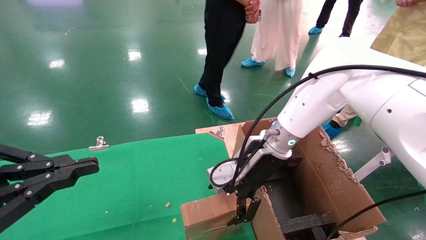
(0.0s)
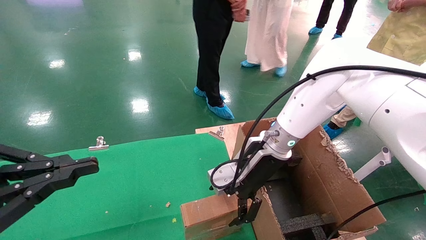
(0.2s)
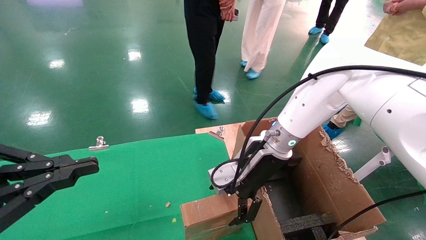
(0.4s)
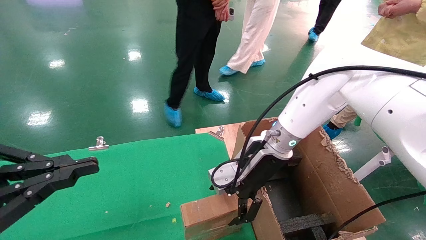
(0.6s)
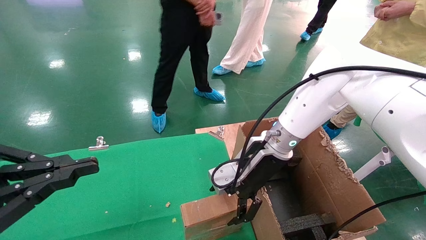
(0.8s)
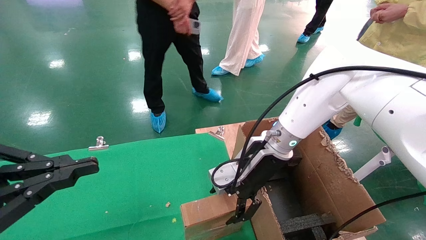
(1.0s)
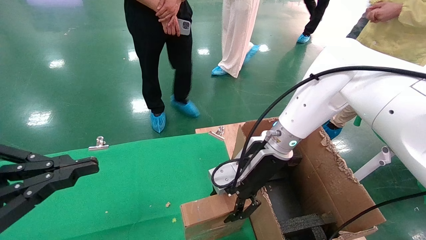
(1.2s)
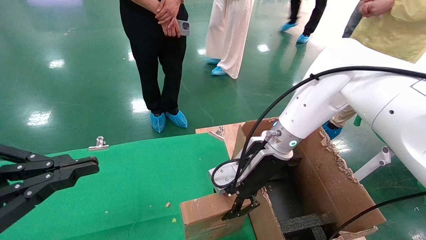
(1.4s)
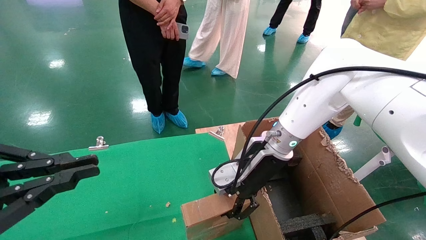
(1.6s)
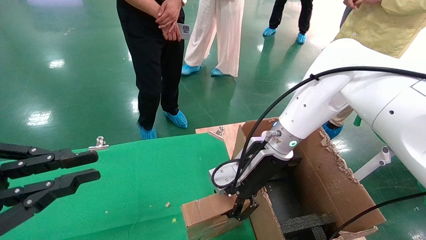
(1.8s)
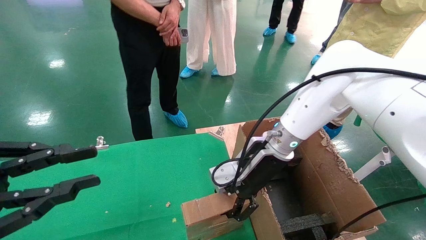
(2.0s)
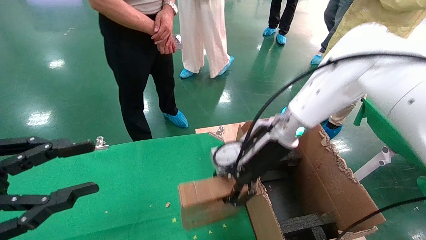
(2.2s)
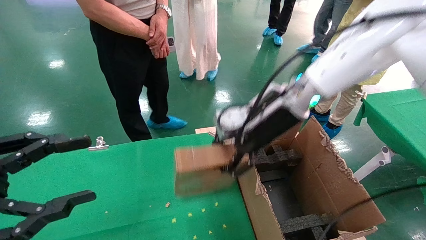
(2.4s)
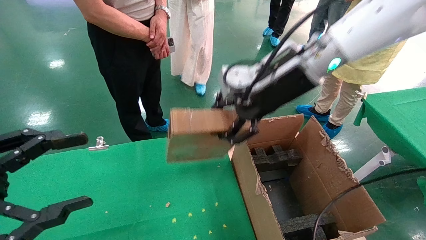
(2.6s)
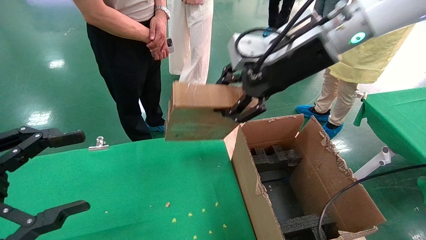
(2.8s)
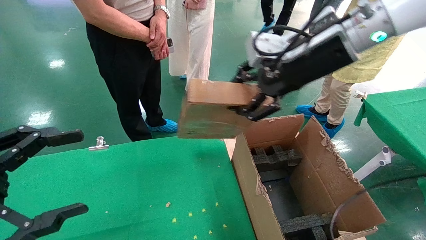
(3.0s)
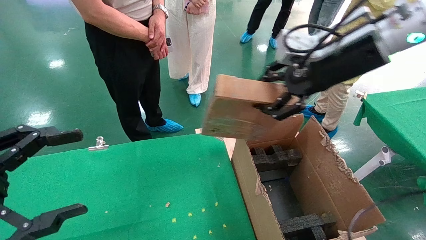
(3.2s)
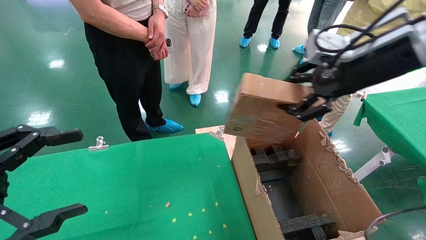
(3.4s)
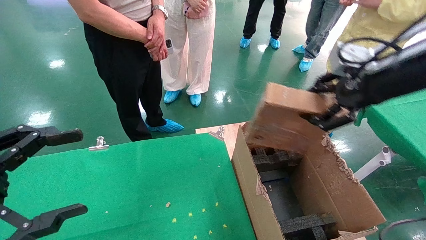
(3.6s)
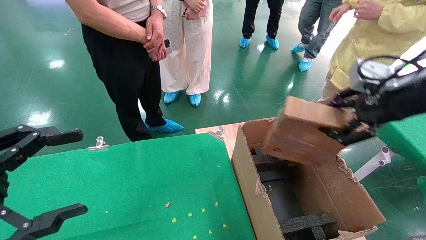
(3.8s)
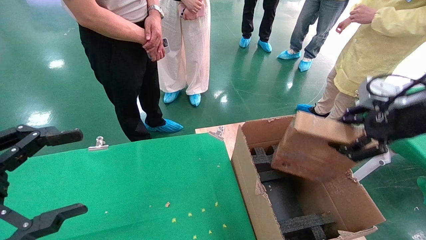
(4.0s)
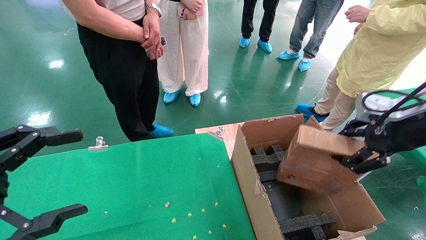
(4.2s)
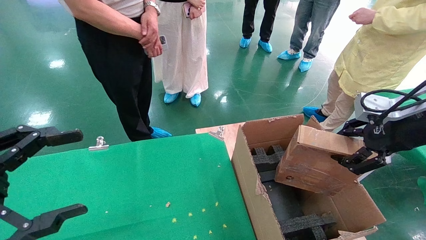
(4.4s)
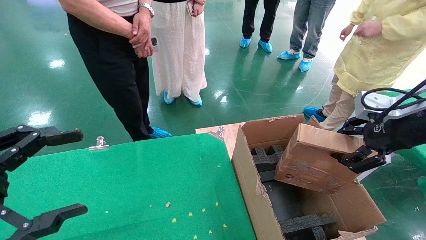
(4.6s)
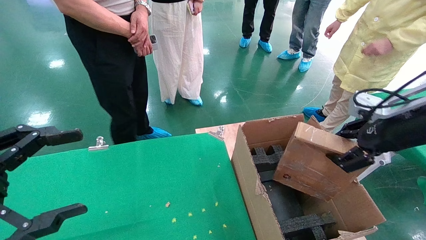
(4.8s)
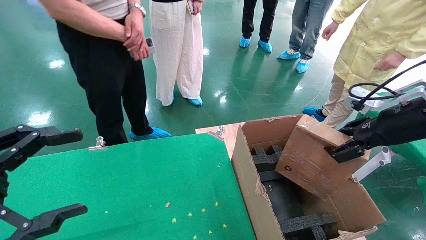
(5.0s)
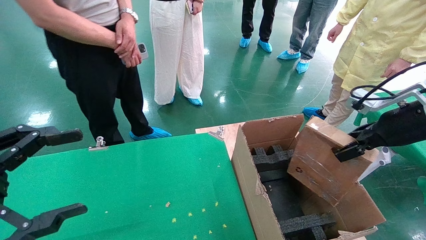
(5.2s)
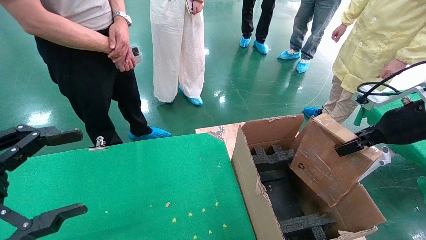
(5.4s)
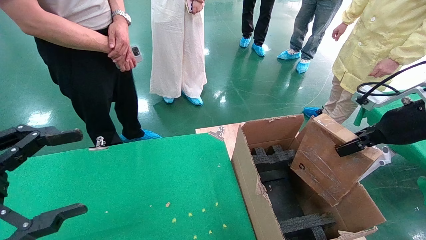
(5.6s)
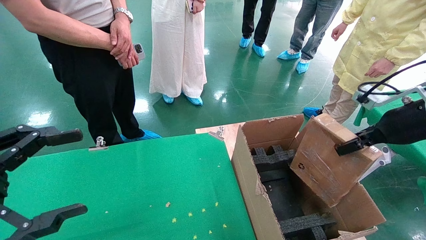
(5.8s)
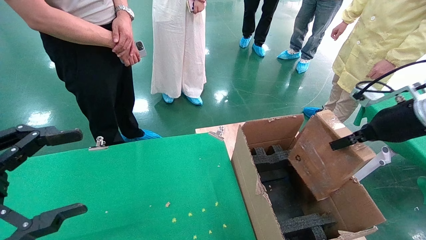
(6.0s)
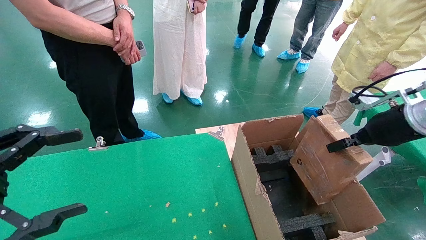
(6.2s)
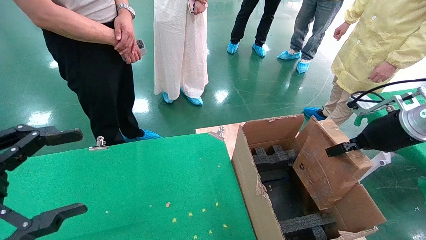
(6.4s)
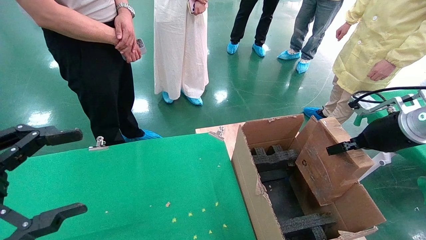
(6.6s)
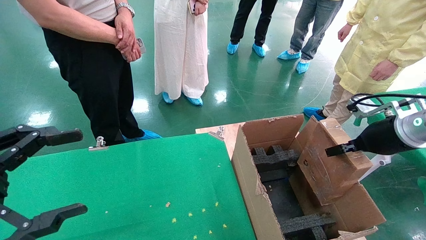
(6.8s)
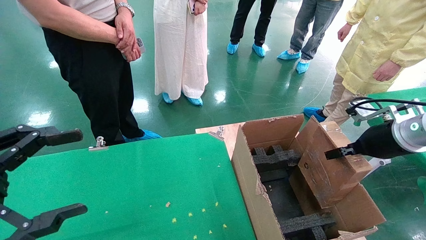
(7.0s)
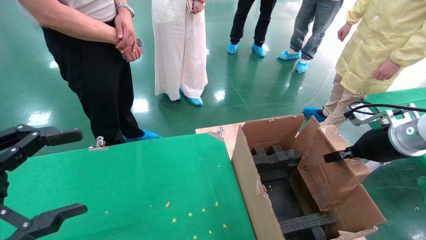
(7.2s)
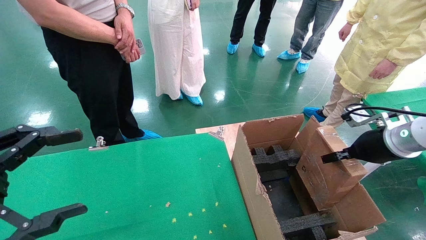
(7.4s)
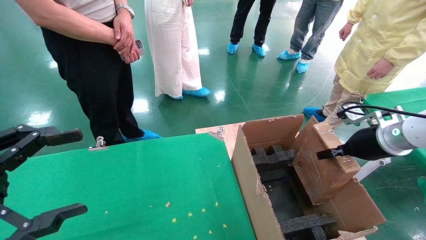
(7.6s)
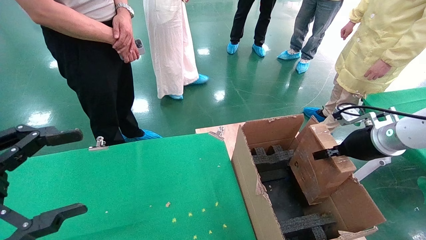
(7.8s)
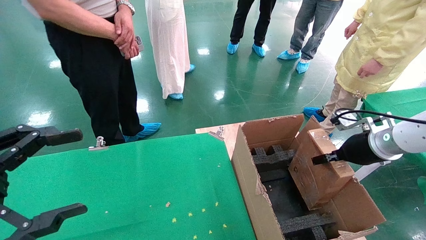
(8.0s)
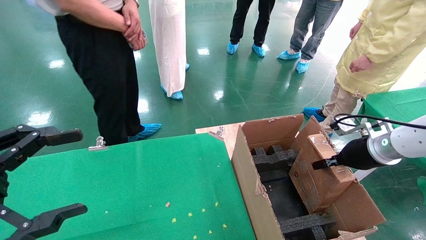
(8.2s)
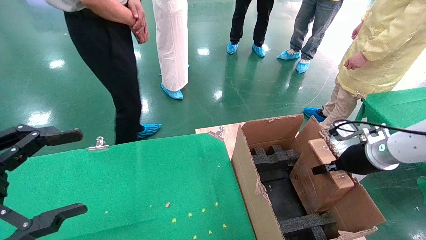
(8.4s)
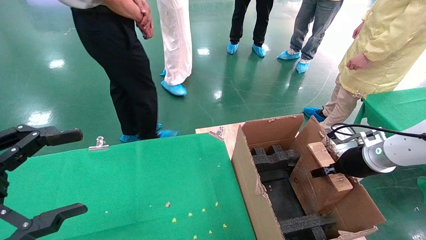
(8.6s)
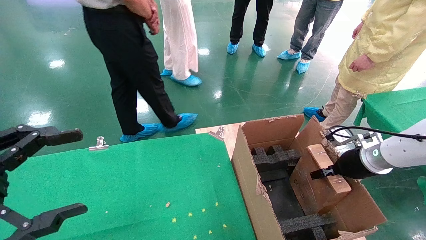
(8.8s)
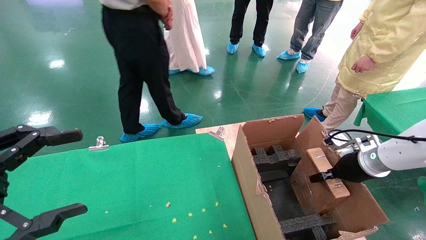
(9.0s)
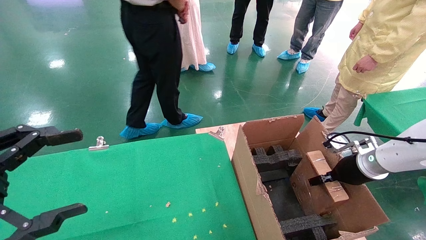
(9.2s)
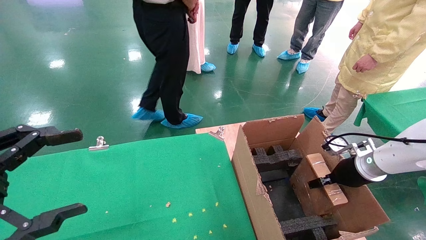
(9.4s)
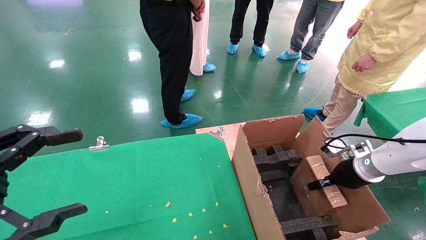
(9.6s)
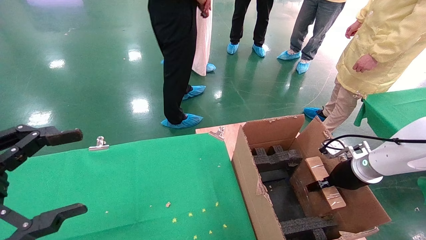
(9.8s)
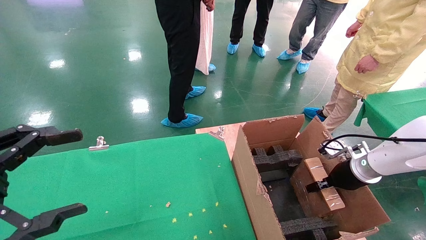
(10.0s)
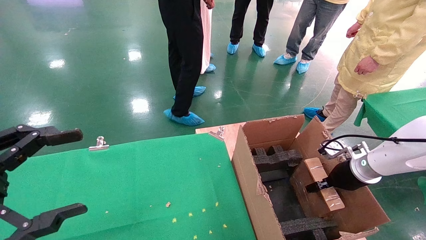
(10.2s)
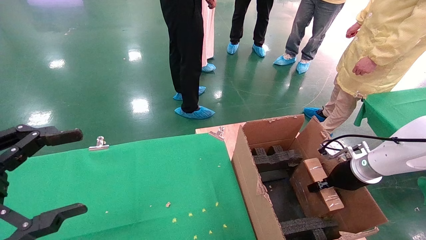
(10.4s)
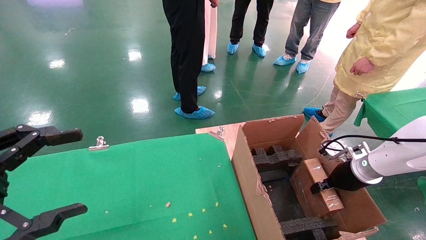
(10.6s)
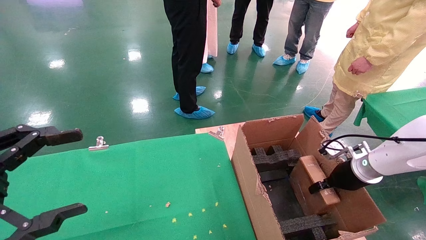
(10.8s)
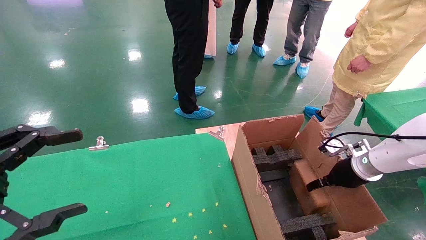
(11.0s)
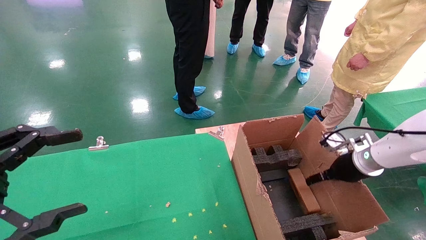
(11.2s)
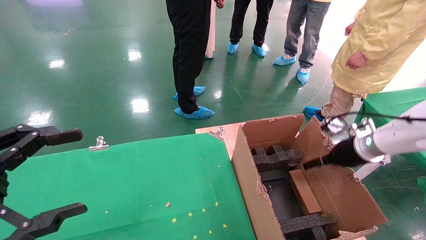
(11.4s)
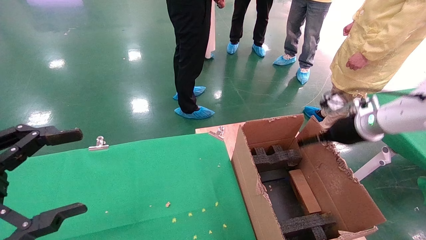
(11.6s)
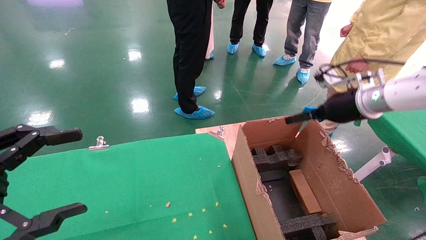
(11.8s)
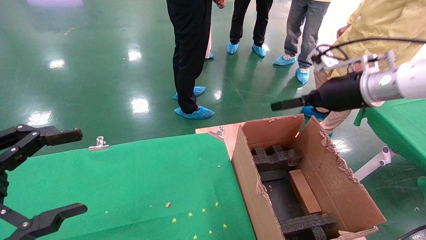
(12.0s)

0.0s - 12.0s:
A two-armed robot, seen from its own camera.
Task of the whole recording: using a robotic arm to pick up a cardboard box and palace it the carton.
Step, 1.8s - 11.8s: Place the mouse and the power cord paper box into the container.
0.0s - 1.6s: The right gripper closes.
1.6s - 3.0s: The left gripper opens, while the right gripper moves upward and to the right, roughly 20 cm.
3.0s - 4.4s: The right gripper moves to the right, downward and backward, some 20 cm.
4.4s - 6.0s: The right gripper goes roughly 5 cm forward.
6.0s - 7.6s: The right gripper goes some 5 cm downward.
7.6s - 9.0s: The right gripper goes about 10 cm downward.
9.0s - 10.4s: The grippers stay close to where they were, moving slightly.
10.4s - 12.0s: The right gripper shifts approximately 20 cm upward, and opens up.

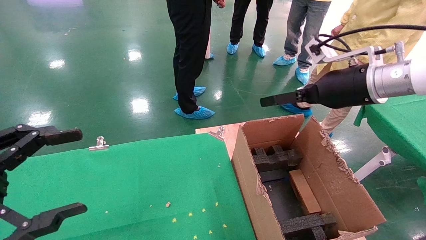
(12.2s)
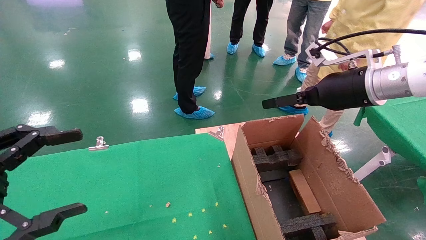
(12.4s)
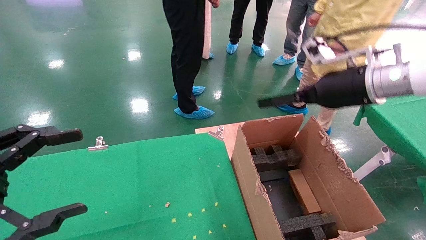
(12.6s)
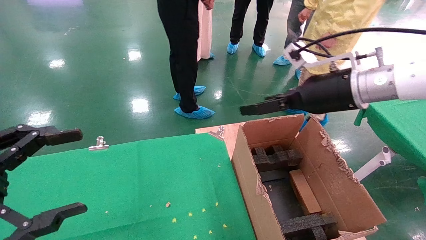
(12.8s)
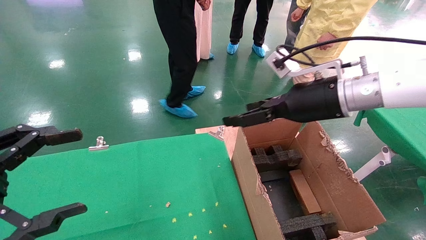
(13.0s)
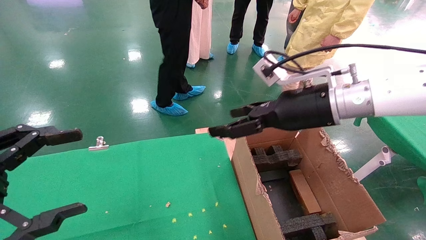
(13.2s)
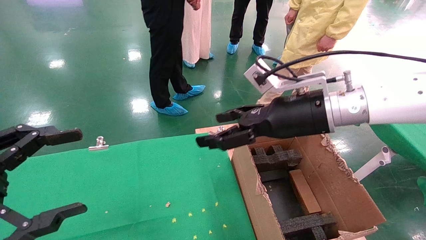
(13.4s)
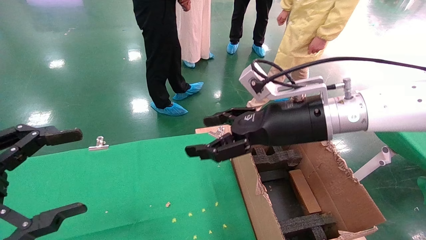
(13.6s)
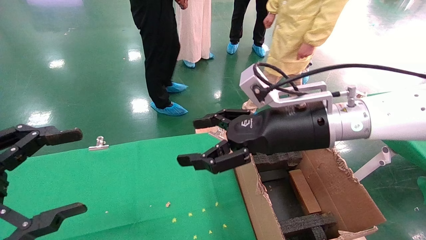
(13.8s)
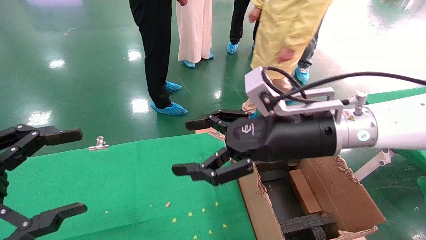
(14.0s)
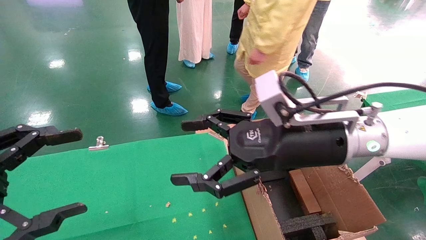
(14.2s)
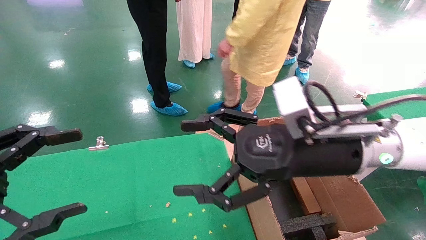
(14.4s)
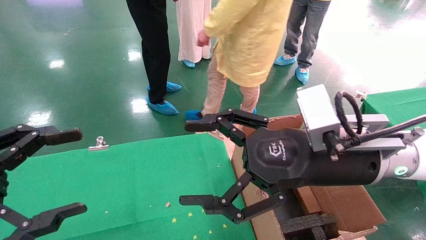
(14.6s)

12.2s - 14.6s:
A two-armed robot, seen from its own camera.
Task of the whole recording: using a robotic arm to pick up a cardboard box and palace it the carton.
12.2s - 13.4s: The right gripper shifts roughly 10 cm to the left.
13.4s - 14.6s: The right gripper heads backward, covering approximately 10 cm.
